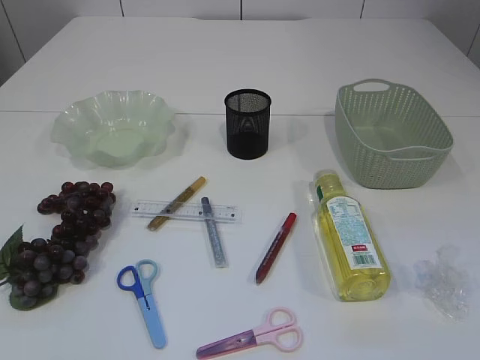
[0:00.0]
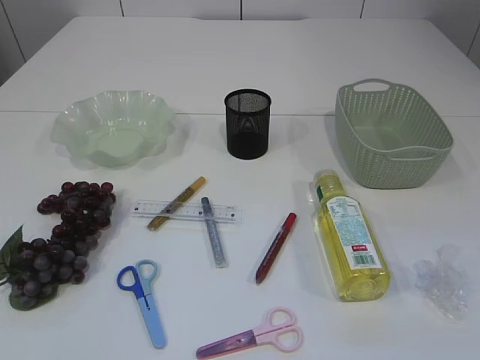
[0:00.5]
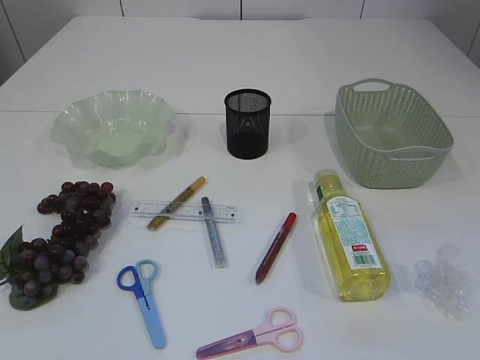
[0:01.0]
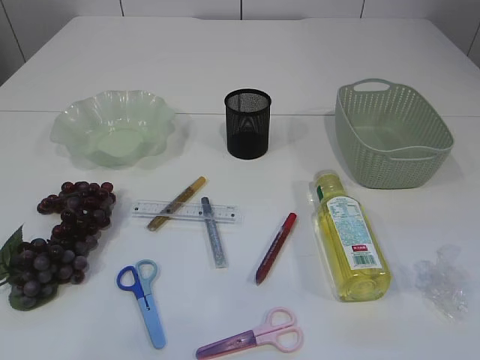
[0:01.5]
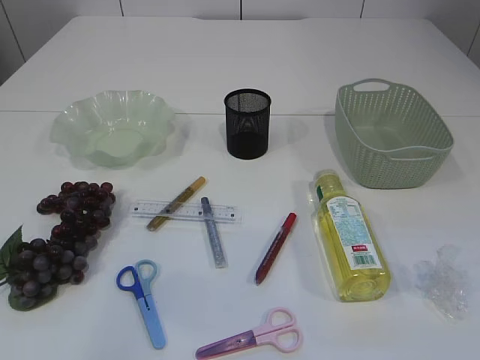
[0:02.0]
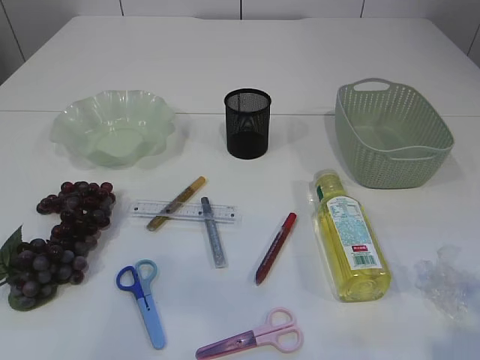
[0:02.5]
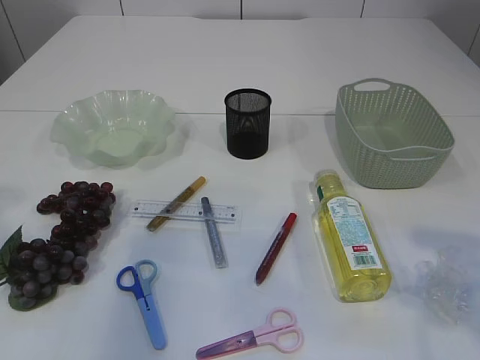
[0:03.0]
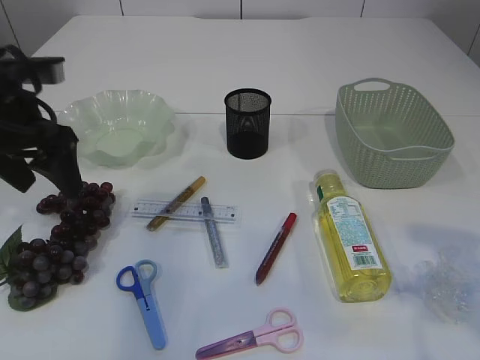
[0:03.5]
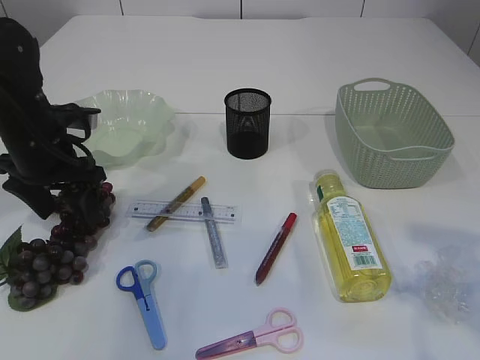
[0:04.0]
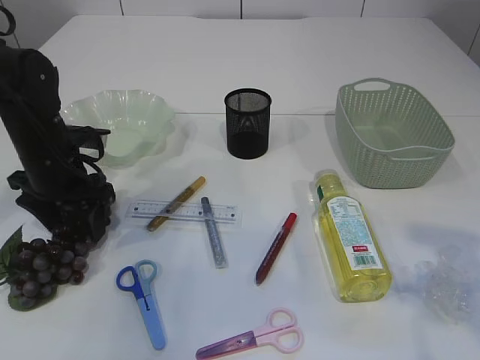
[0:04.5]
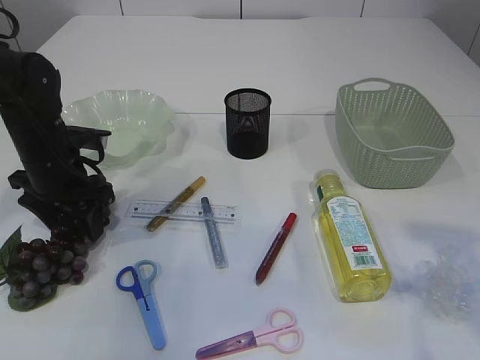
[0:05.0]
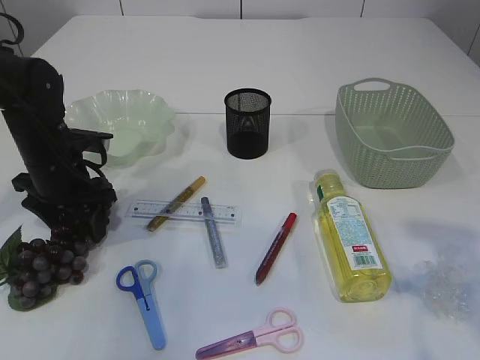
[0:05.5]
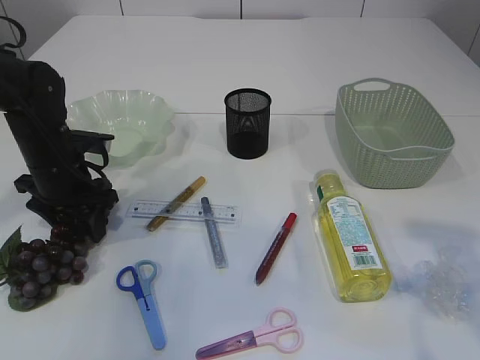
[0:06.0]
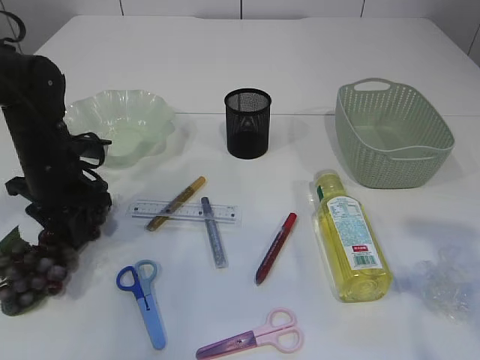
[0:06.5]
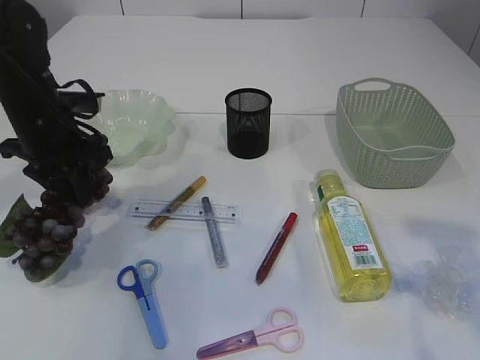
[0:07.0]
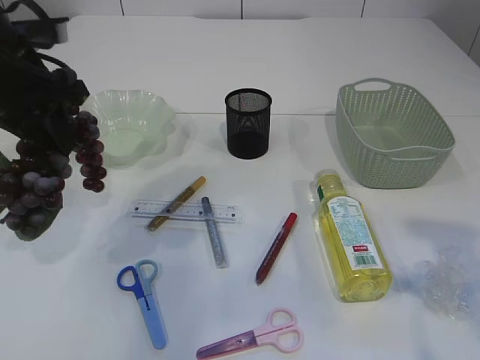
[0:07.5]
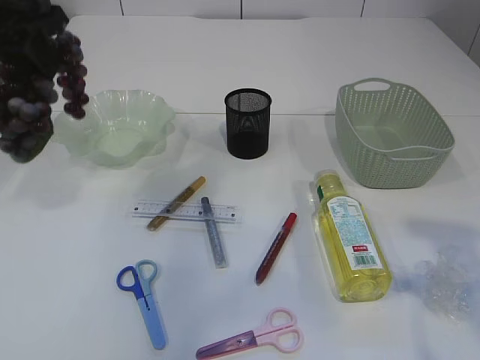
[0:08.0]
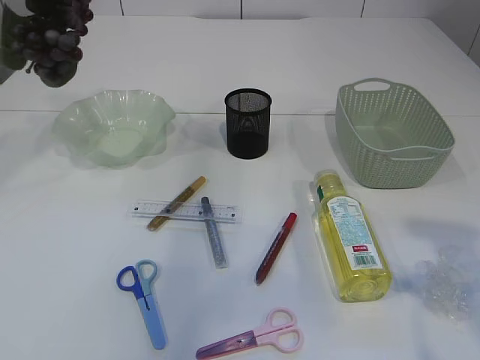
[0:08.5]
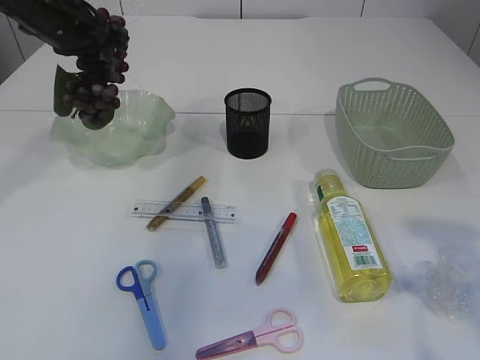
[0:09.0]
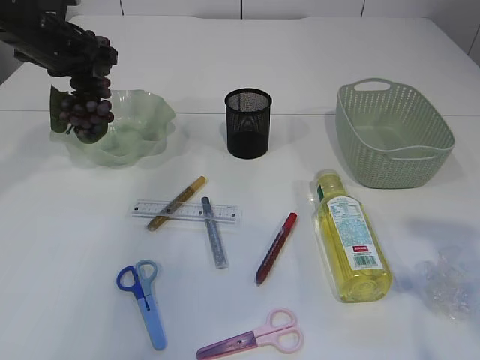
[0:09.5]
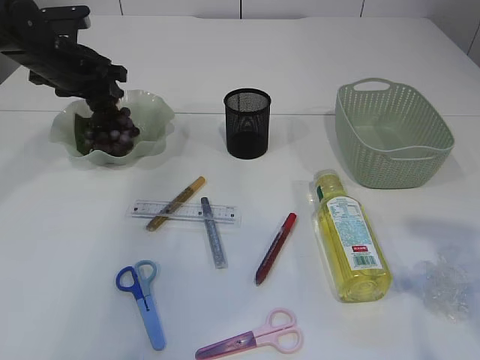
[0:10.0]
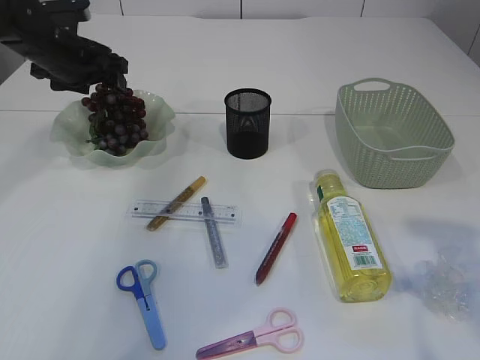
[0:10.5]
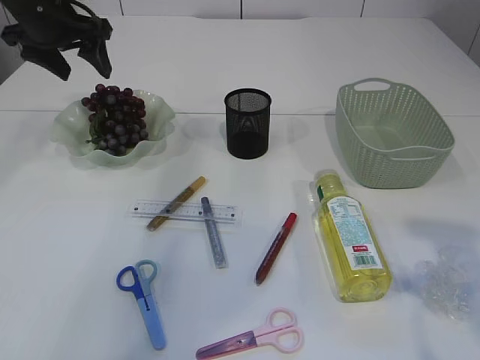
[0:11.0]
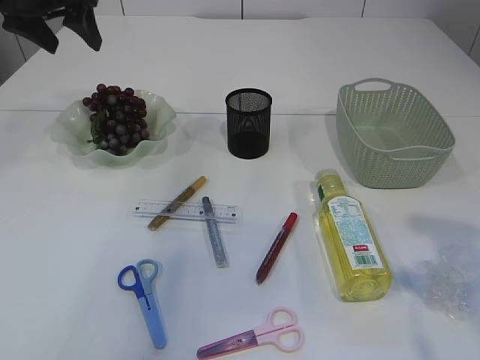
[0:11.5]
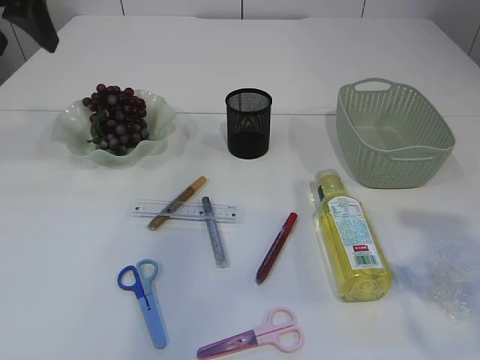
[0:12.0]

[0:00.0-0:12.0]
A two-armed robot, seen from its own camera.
Step, 0:00.0 to 0:07.0: Pick up the grapes.
Step, 0:07.5 to 0:10.5: Place the grapes in the plate.
0:02.0 to 0:04.0: The left gripper goes approximately 30 cm forward and downward.
0:04.0 to 0:06.0: The left gripper heads downward, covering roughly 5 cm.
0:06.0 to 0:08.0: The left gripper moves upward, roughly 20 cm, and closes.
0:08.0 to 0:10.0: The left gripper shifts roughly 20 cm downward and forward.
0:10.0 to 0:12.0: The left gripper is displaced upward and backward by some 20 cm, and opens its fingers.

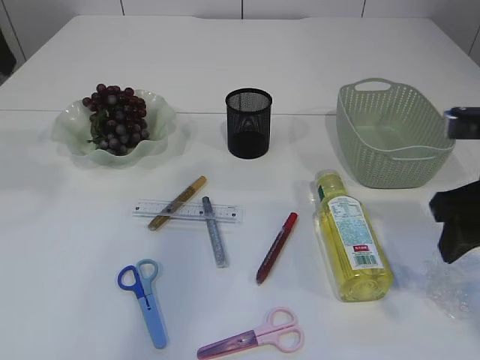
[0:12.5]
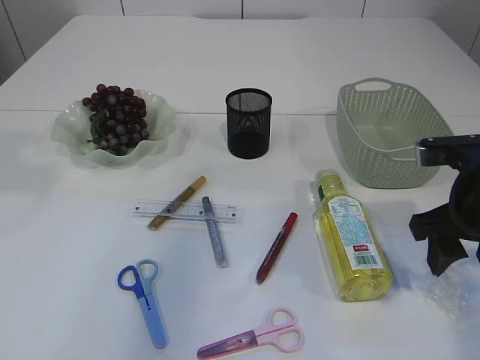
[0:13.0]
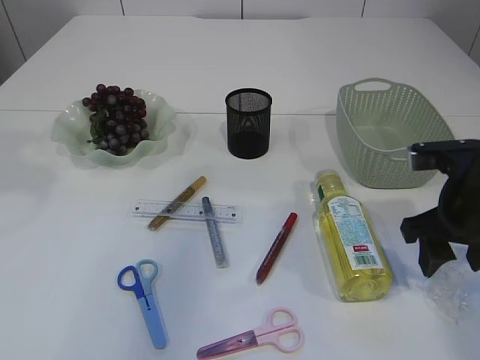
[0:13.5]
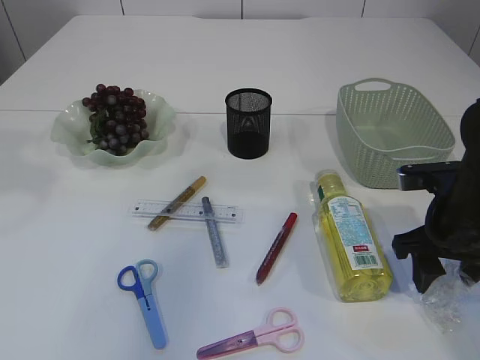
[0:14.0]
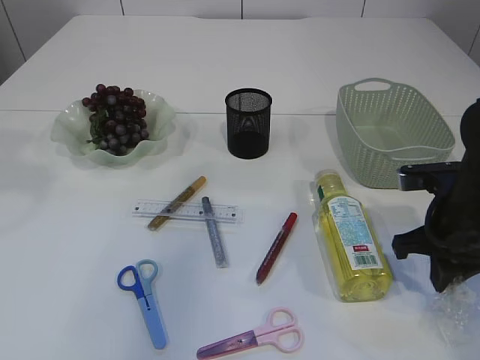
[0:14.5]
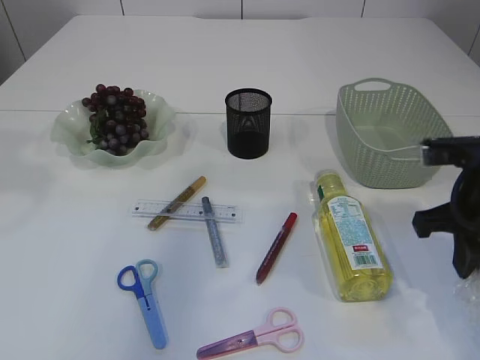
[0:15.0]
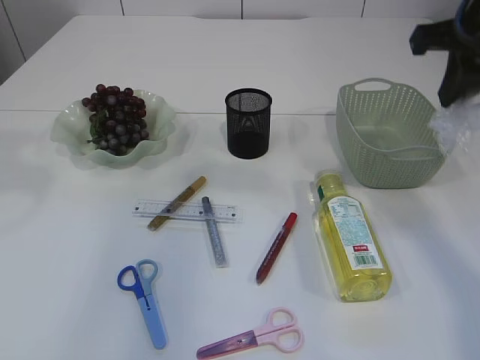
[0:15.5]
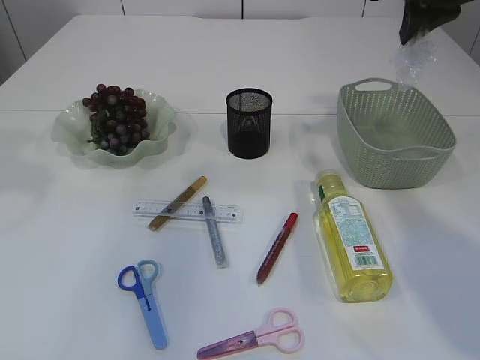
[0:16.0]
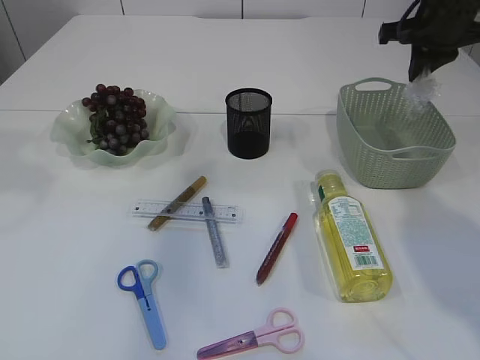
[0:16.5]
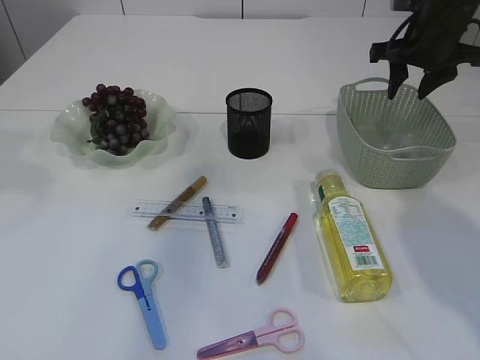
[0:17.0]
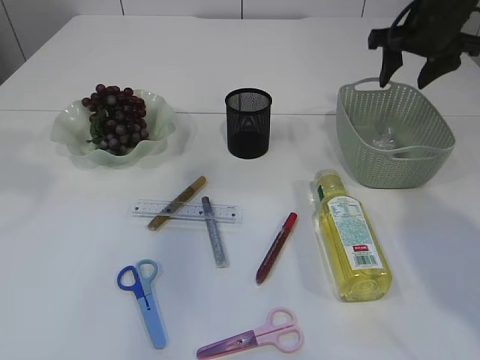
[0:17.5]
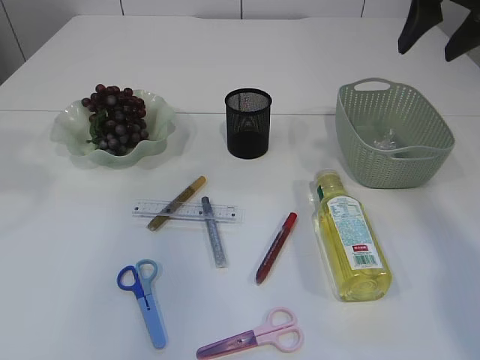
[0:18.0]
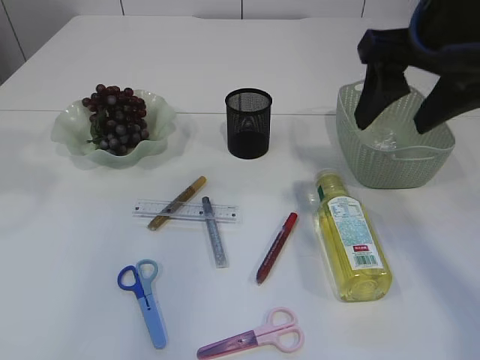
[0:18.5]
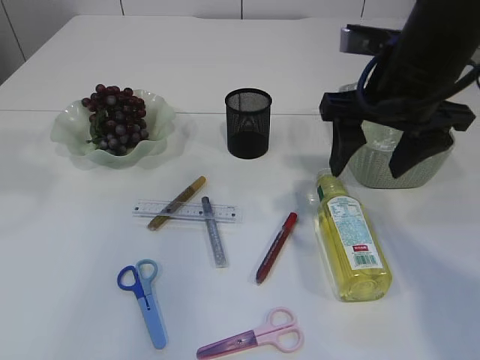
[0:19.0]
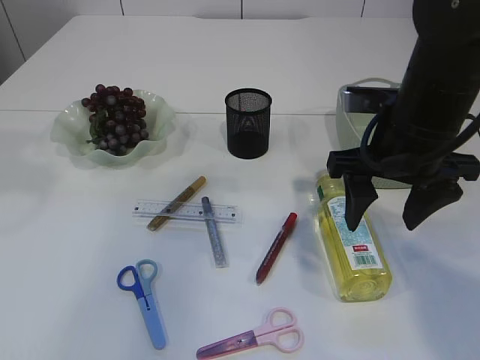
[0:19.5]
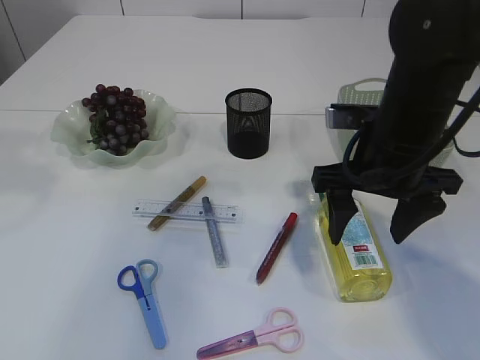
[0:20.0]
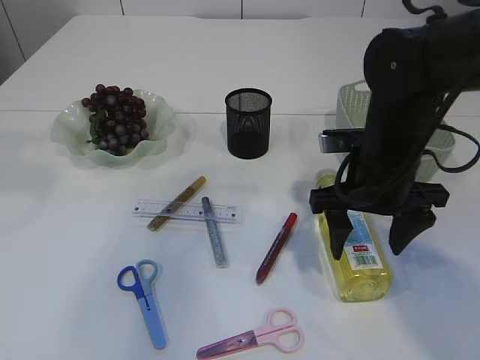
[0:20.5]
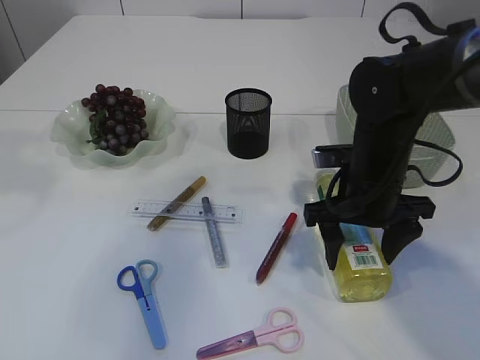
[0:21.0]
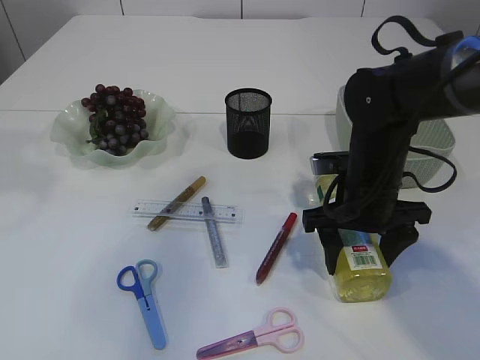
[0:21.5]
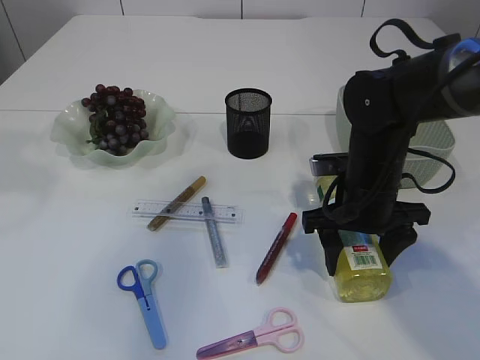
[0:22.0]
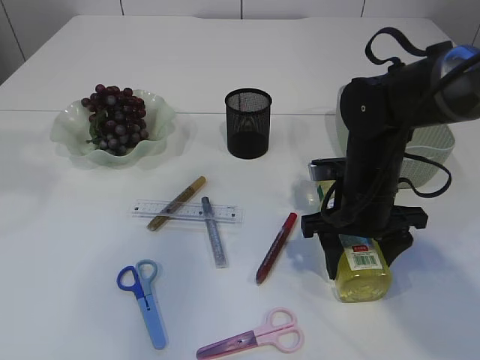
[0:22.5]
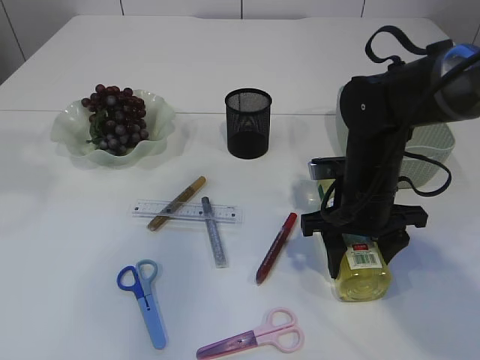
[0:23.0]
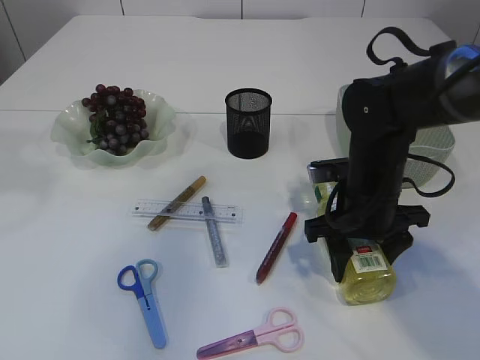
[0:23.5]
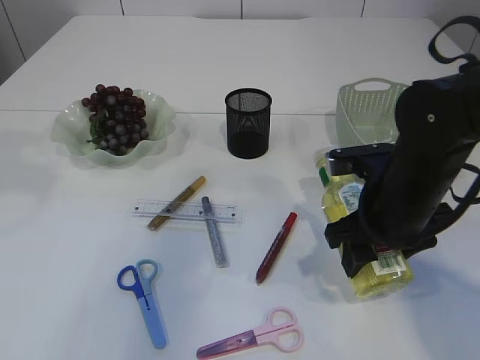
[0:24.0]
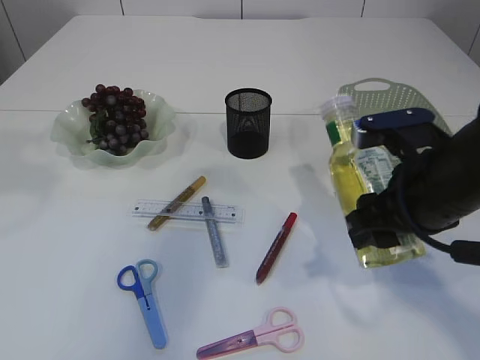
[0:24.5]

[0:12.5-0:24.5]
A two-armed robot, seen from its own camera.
Step, 0:12.5 to 0:15.0: Pick up the plastic.
Step, 0:15.5 to 0:17.0: Place the plastic in the basket.
Step, 0:17.5 to 0:24.0: Pick up the bottle with the right arm.
0:12.5 to 0:14.5: The right gripper moves downward, roughly 10 cm, and closes.
0:14.5 to 0:16.5: The right gripper shifts approximately 25 cm forward and upward.
0:16.5 to 0:18.5: The right gripper heads backward and to the left, covering about 20 cm, and opens its fingers.
0:18.5 to 0:20.5: The right gripper is displaced downward by about 15 cm.
0:20.5 to 0:22.5: The right gripper shifts approximately 5 cm downward.
0:22.5 to 0:24.5: The right gripper moves backward and upward, some 10 cm.

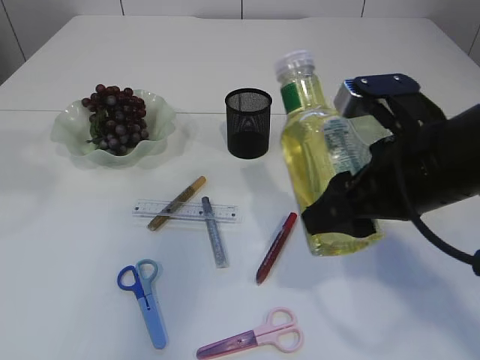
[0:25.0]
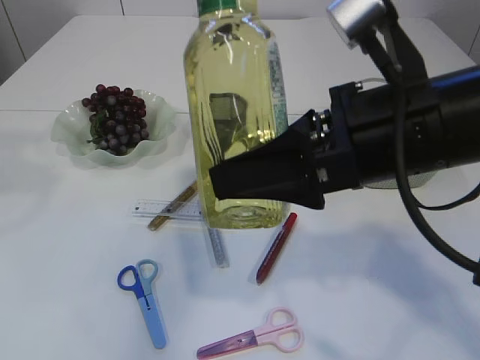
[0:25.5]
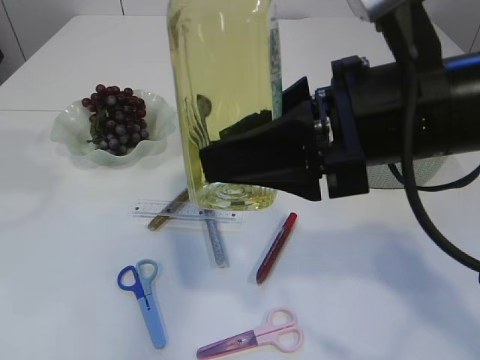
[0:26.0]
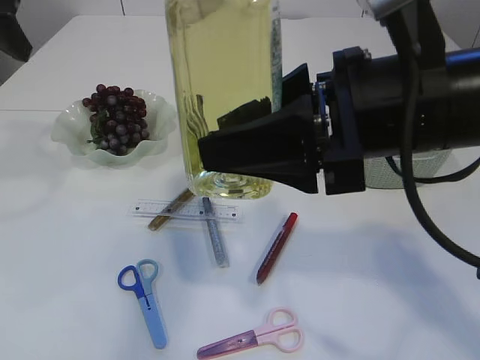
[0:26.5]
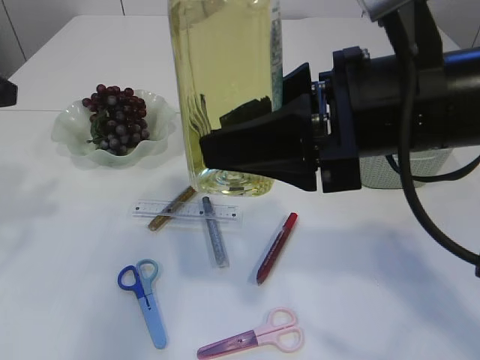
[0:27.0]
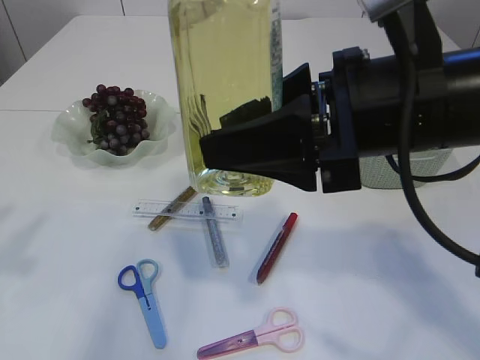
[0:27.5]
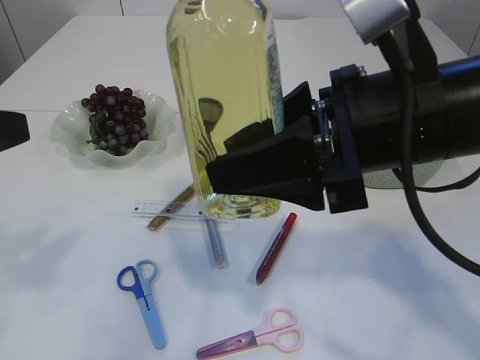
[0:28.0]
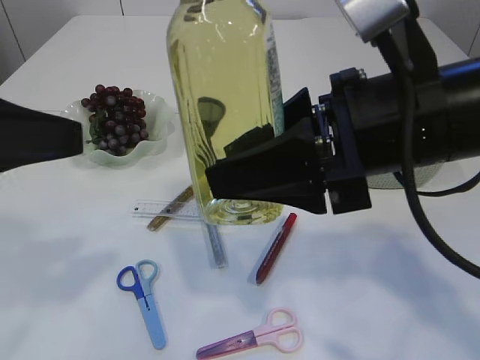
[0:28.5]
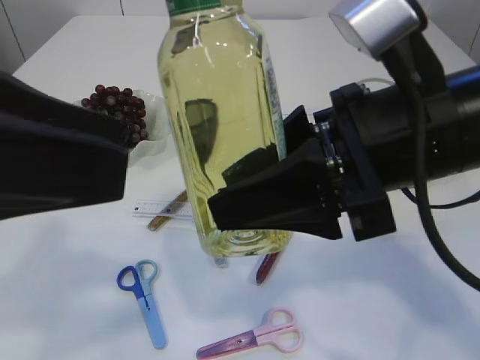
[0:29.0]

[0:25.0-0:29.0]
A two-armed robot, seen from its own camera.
0:25.0 to 0:27.0: The left gripper moves downward, approximately 10 cm, while the right gripper moves upward, some 5 cm.
0:27.0 to 0:29.0: The left gripper moves backward and to the right, roughly 15 cm.
